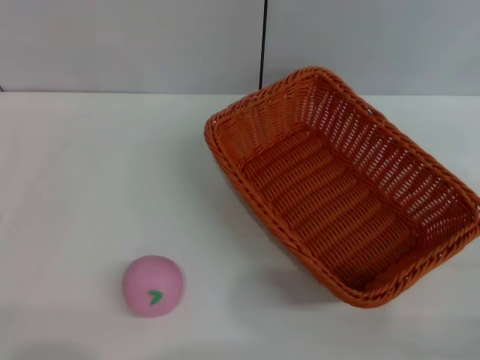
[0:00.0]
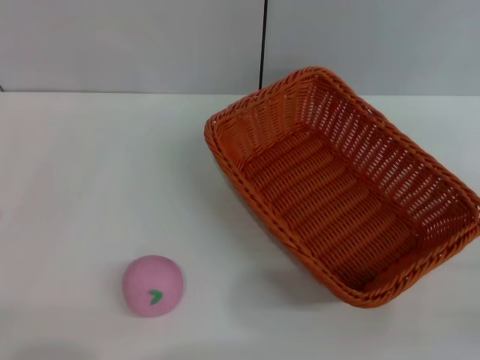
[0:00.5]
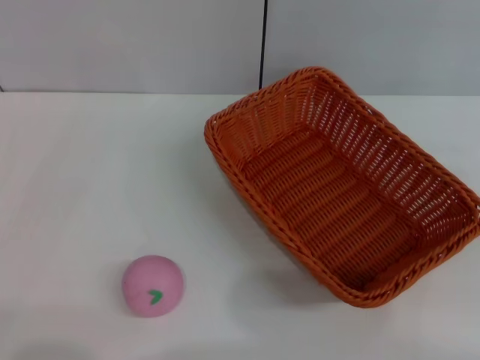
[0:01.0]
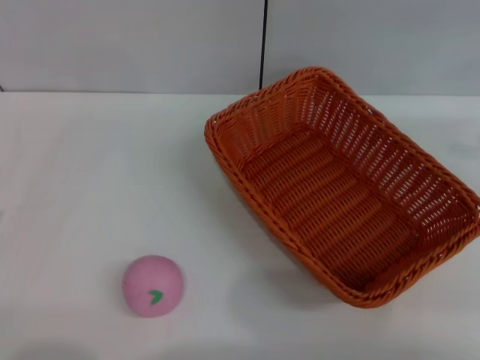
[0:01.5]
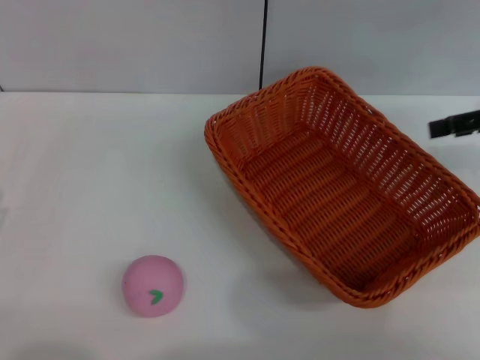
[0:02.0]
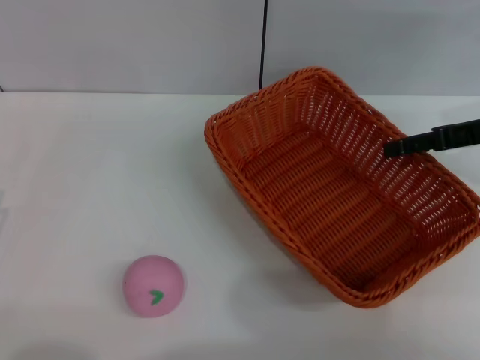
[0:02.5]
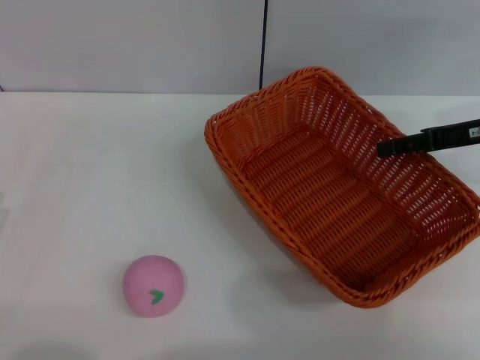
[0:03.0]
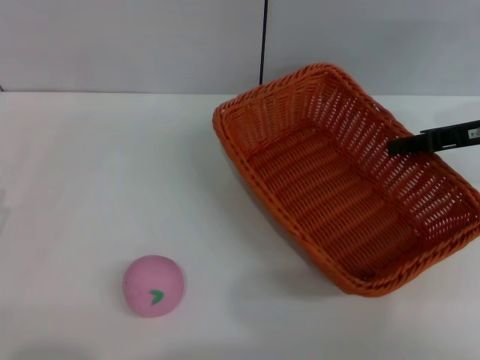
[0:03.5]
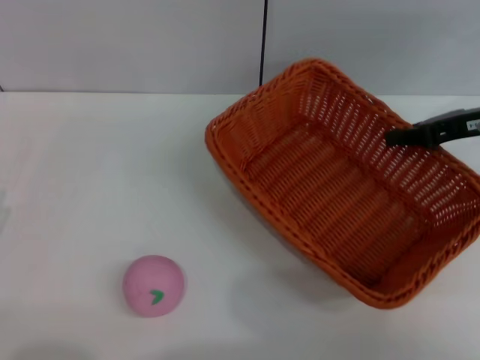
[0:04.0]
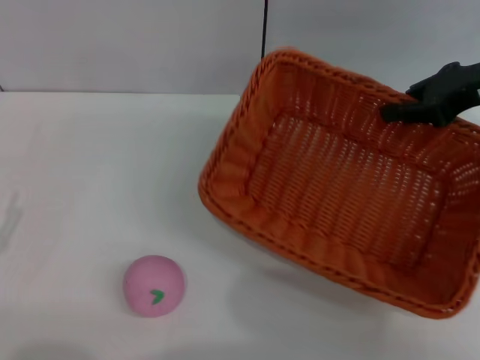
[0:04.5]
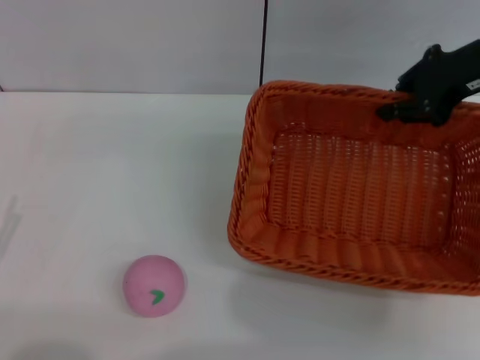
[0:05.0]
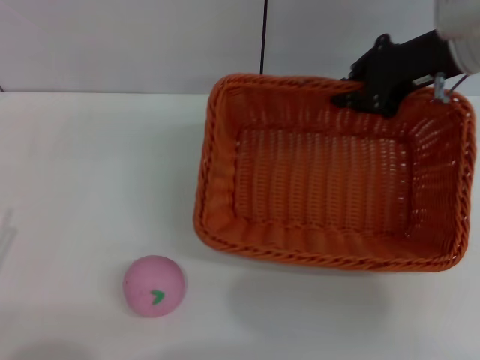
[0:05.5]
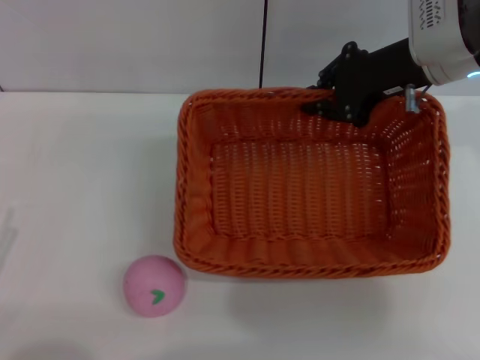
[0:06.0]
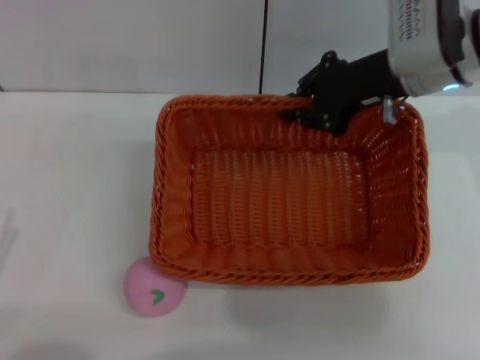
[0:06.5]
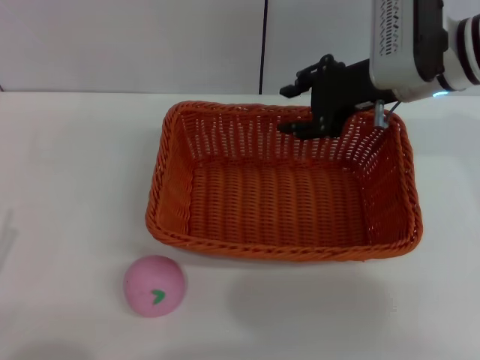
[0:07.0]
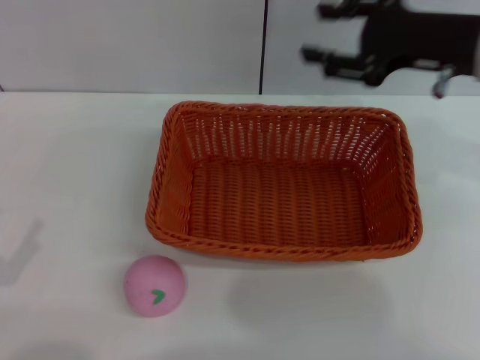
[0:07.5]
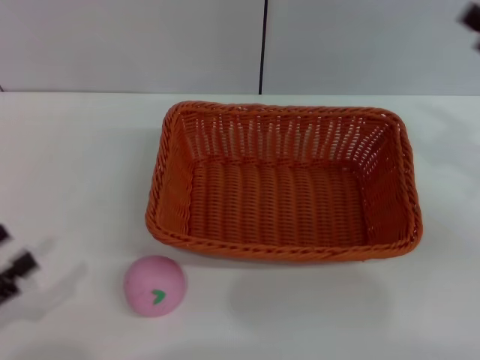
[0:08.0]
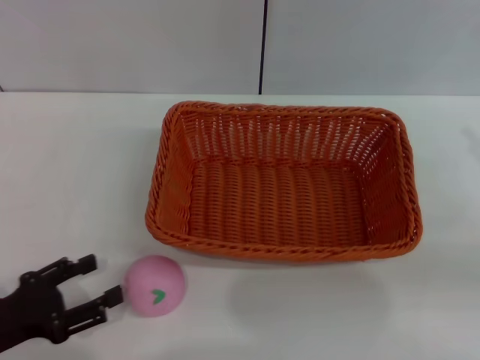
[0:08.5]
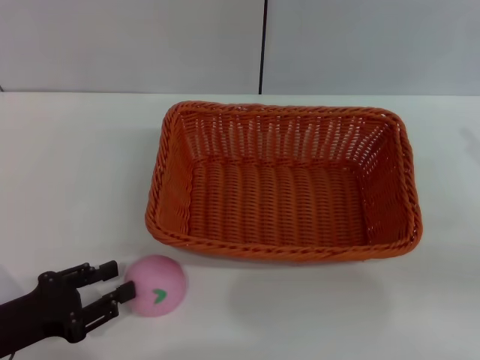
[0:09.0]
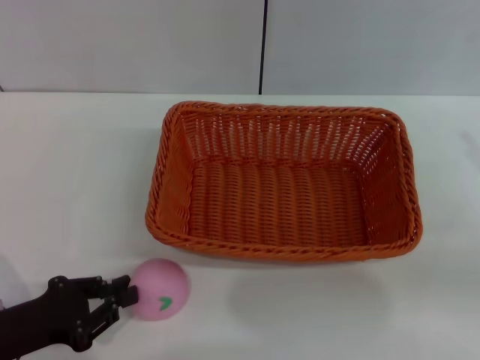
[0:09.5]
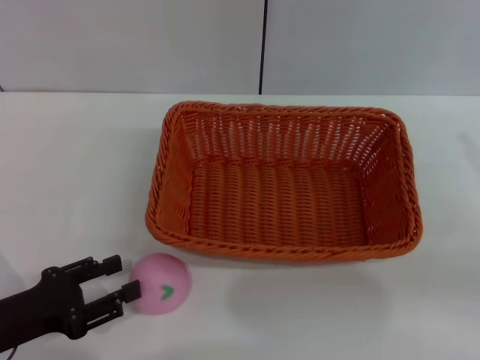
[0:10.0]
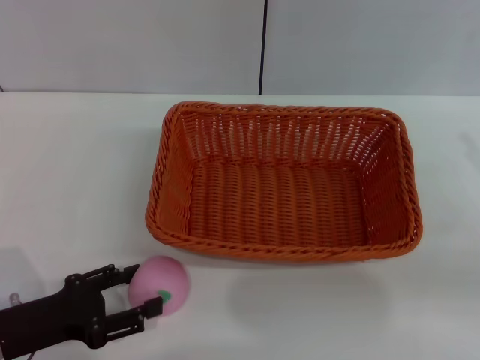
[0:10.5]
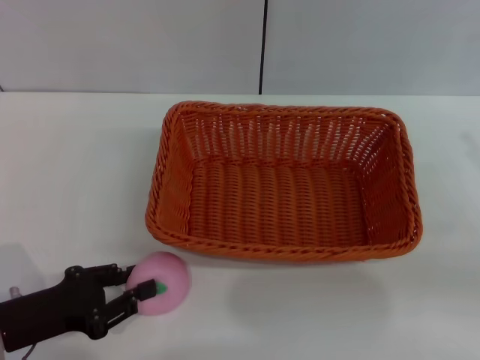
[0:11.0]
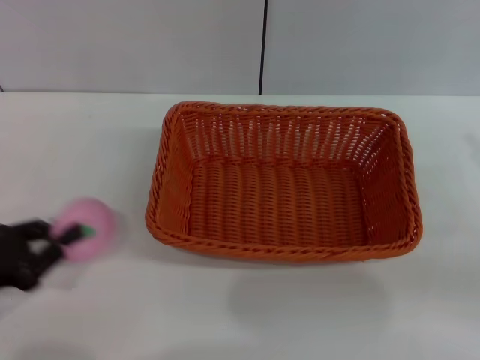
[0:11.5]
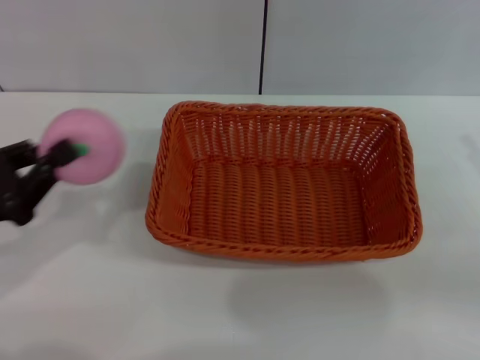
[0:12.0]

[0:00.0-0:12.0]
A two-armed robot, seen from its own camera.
Step, 0:00.0 to 0:04.0: Pick up the light basket with the right gripper.
Step, 0:04.5 to 0:07.0: Place the light basket in the center of view with the right gripper.
Step, 0:07.5 to 0:12.0: Pick up the peach with the left gripper.
0:00.0 to 0:02.0: The right gripper moves forward and upward, some 25 cm.
0:02.0 to 0:04.0: The right gripper shifts roughly 5 cm to the left, and closes.
0:04.0 to 0:06.0: The right gripper shifts some 10 cm to the left.
0:06.0 to 0:08.0: The right gripper travels to the right and backward by roughly 20 cm, and opens up.
0:08.0 to 0:10.0: The left gripper is displaced to the right by approximately 5 cm, and closes up.
0:10.0 to 0:12.0: The left gripper travels upward by some 5 cm, and closes up.

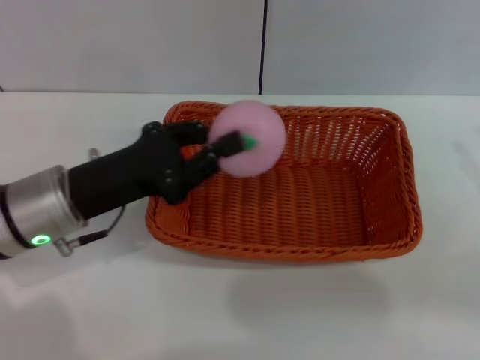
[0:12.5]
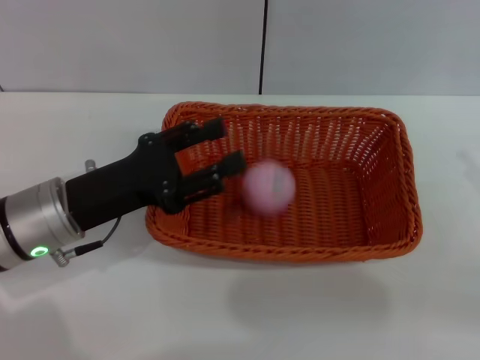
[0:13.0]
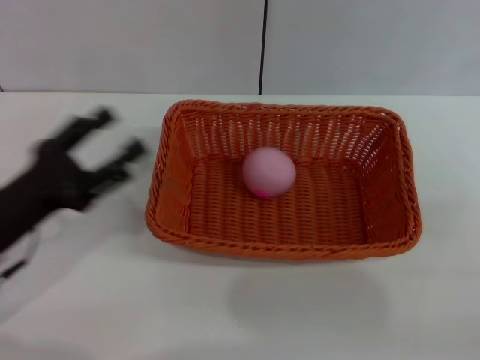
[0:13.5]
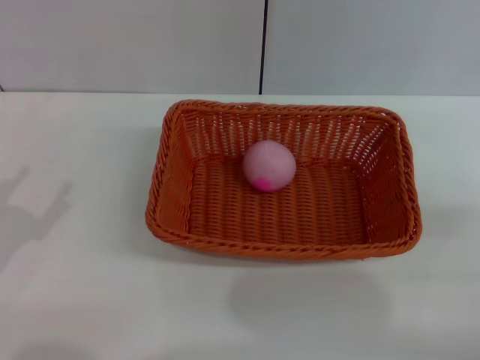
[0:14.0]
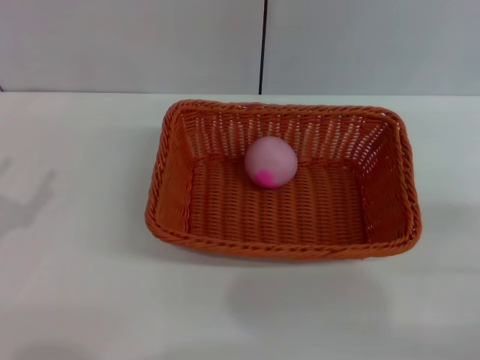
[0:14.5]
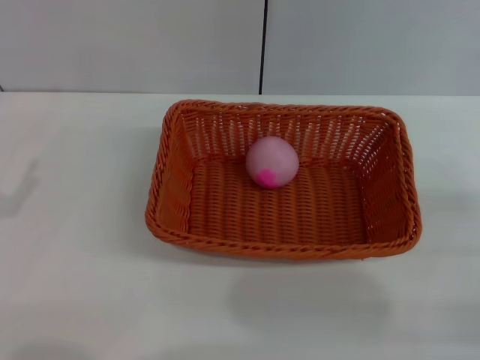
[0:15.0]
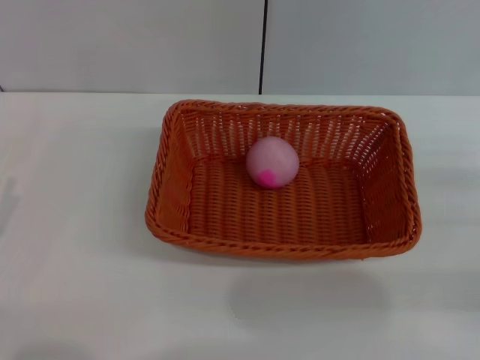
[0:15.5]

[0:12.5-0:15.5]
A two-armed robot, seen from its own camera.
Step, 0:12.5 to 0:13.0: Place the peach into the basket with the left gripper.
0:12.5 to 0:14.0: The left gripper goes about 15 cm to the left and backward, and opens up; the right gripper travels backward by some 5 cm.
0:14.0 to 0:15.5: The right gripper goes about 5 cm forward.
